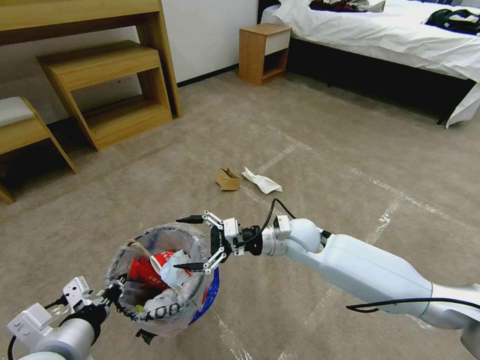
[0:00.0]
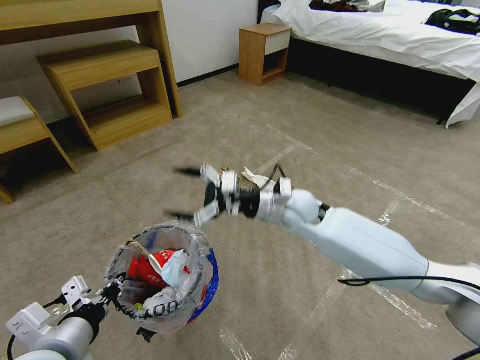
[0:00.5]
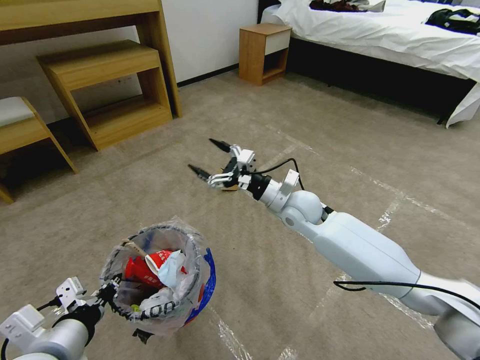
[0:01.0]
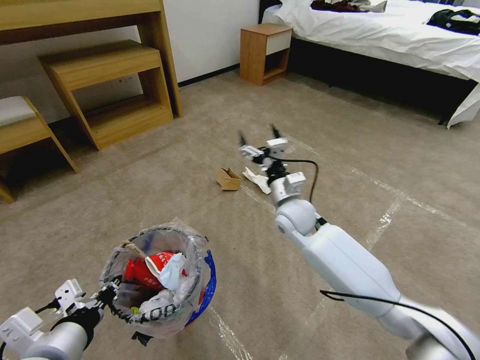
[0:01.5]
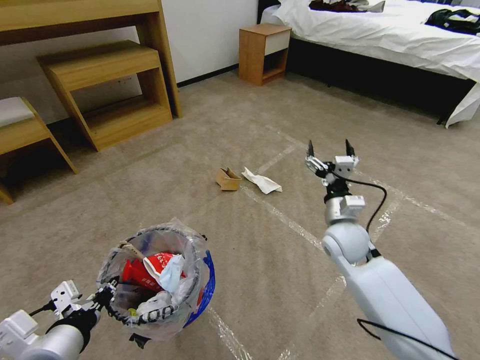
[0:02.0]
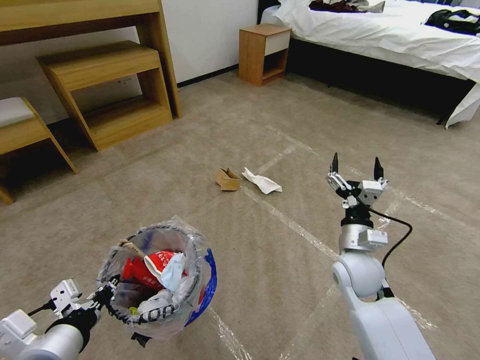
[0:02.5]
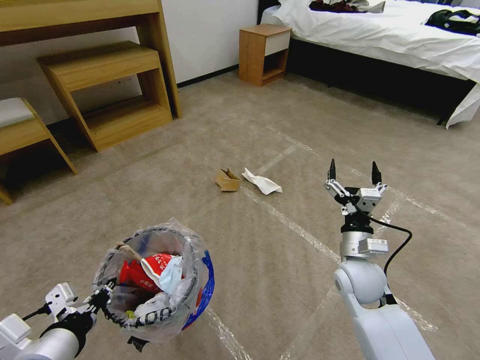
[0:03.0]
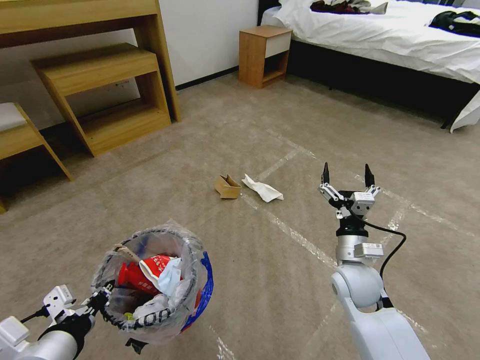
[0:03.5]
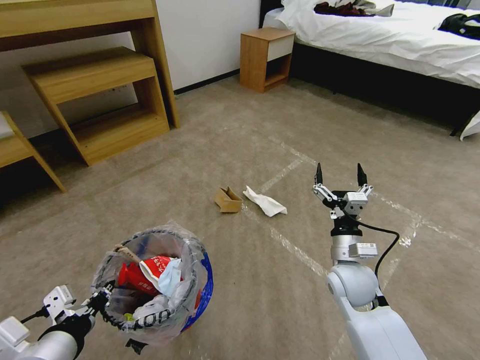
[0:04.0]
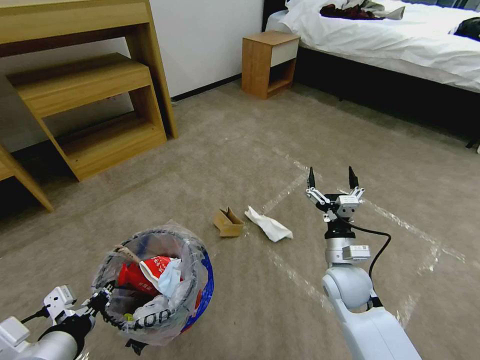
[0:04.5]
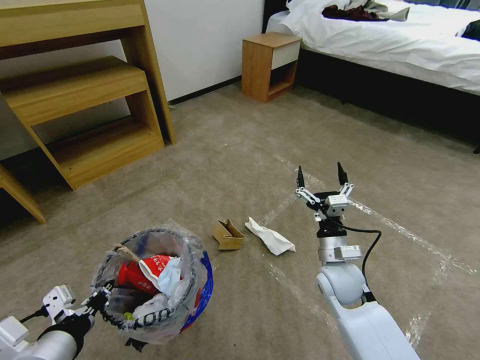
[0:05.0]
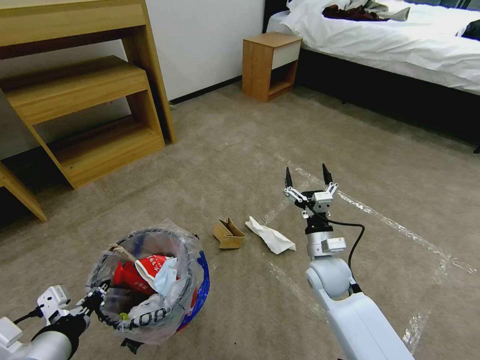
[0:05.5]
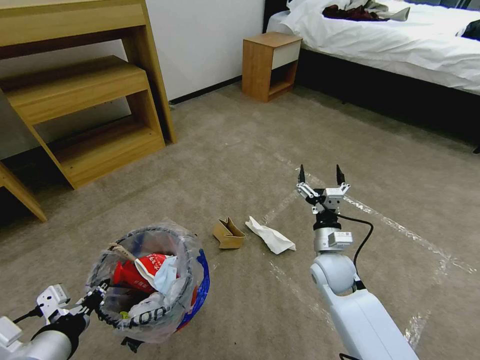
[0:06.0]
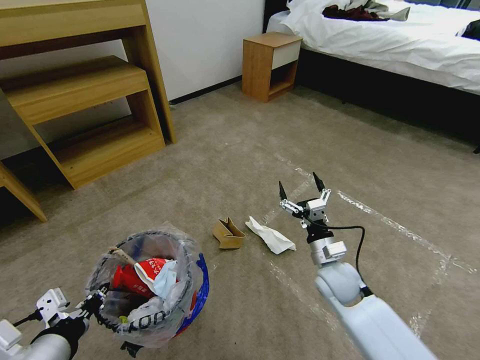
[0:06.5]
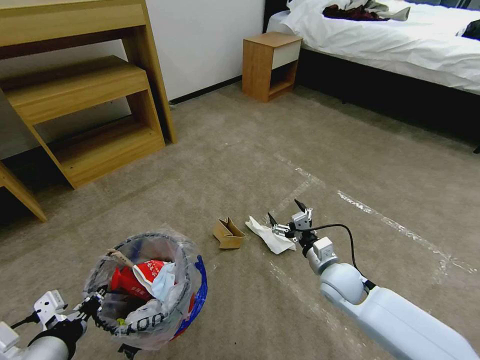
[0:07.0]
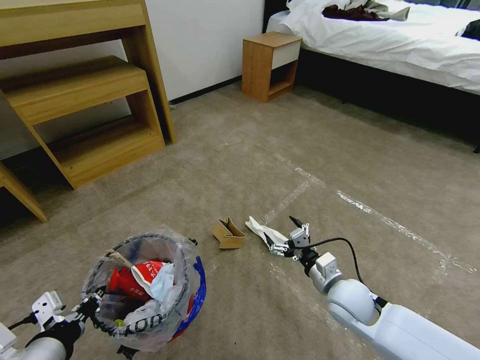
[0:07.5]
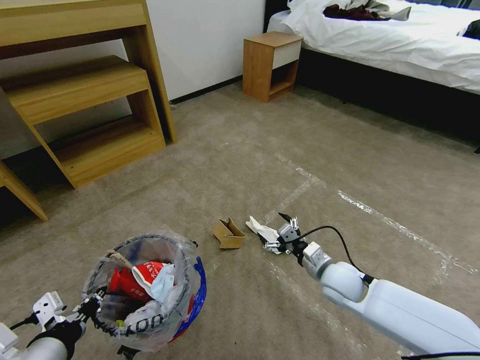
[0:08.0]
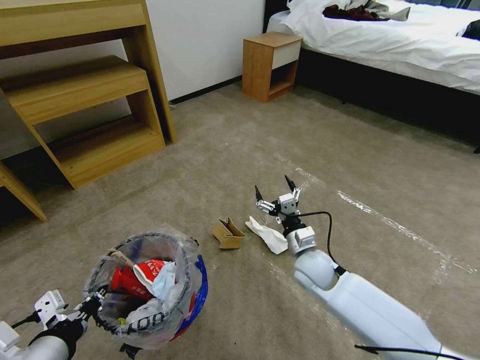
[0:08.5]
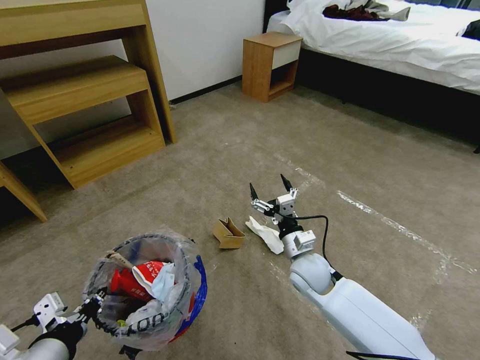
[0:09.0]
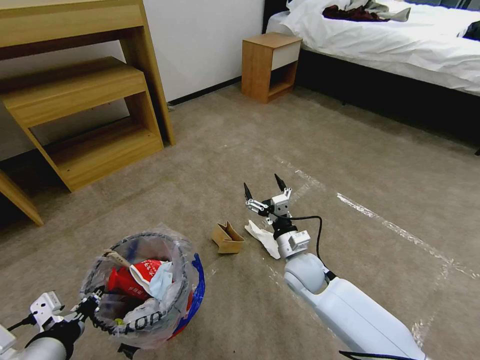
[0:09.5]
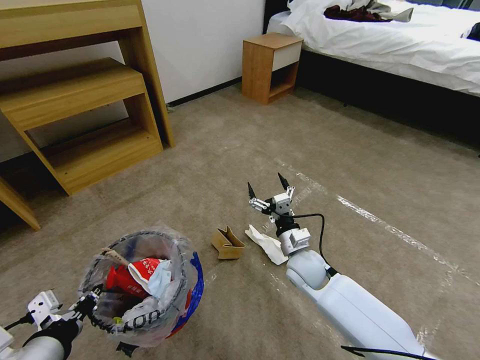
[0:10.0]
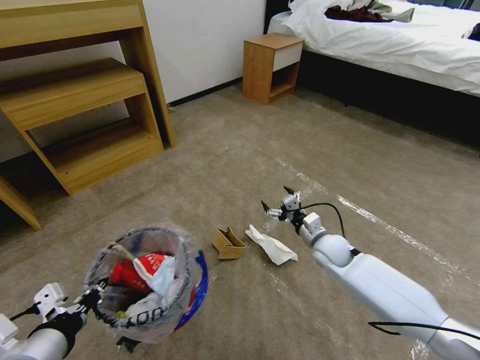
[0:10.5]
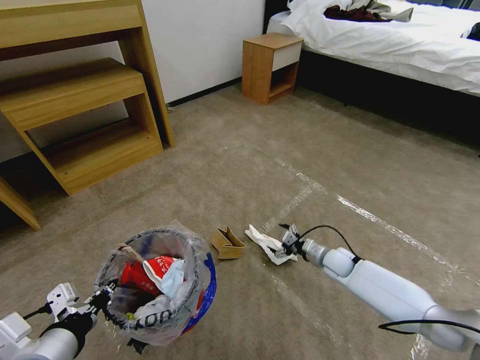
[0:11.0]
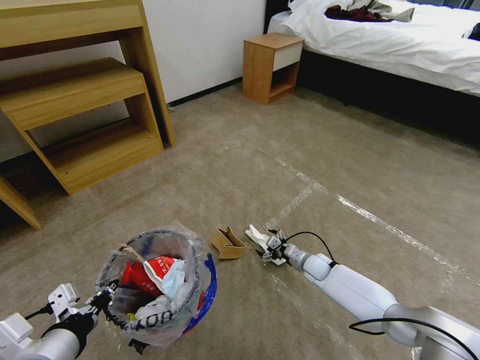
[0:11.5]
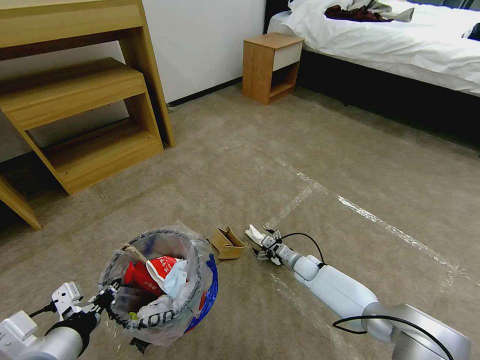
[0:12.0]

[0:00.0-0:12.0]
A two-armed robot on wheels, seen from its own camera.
Task of the whole recording: Pick up the trash bin and place the garbage on the floor into it.
0:00.0 to 0:02.0: The right gripper travels to the right by approximately 10 cm.
0:02.0 to 0:04.0: The right gripper goes about 10 cm backward.
0:08.0 to 0:10.0: The right gripper shifts some 10 cm to the left.
0:10.0 to 0:12.0: The right gripper goes some 20 cm downward, forward and to the right.

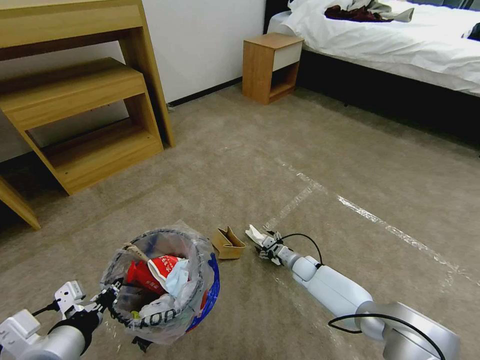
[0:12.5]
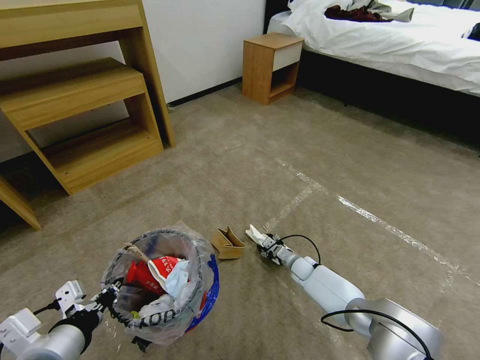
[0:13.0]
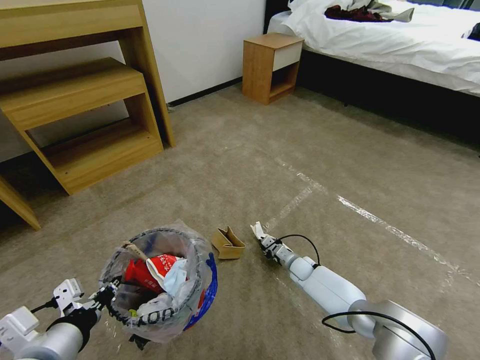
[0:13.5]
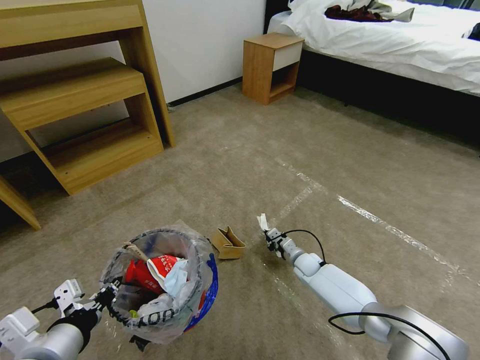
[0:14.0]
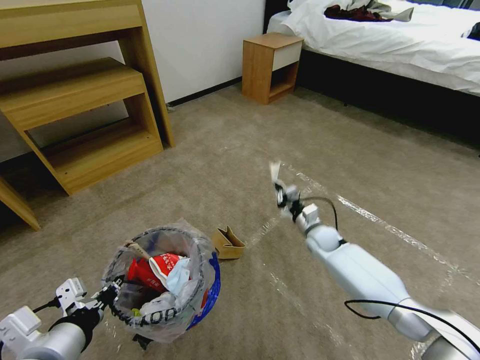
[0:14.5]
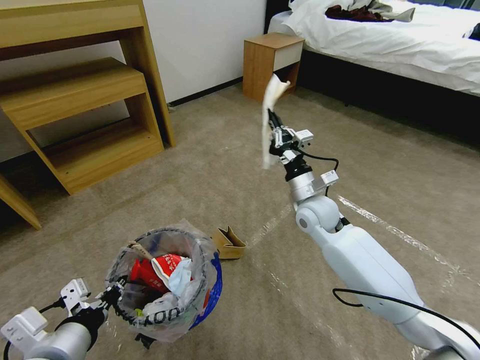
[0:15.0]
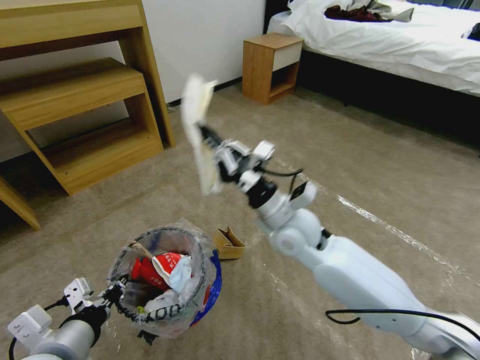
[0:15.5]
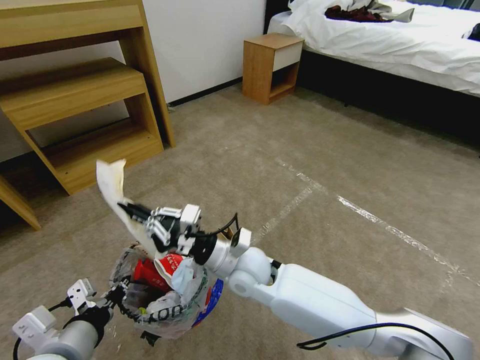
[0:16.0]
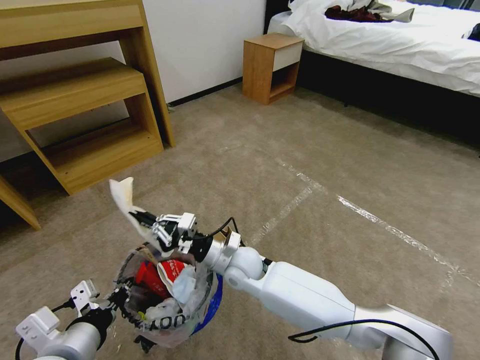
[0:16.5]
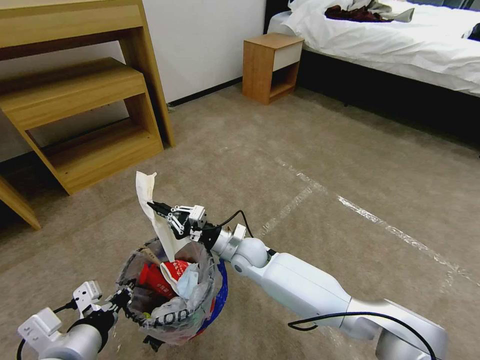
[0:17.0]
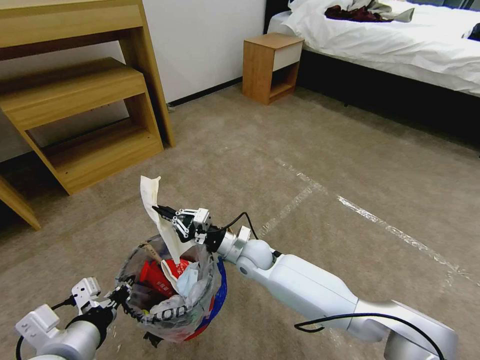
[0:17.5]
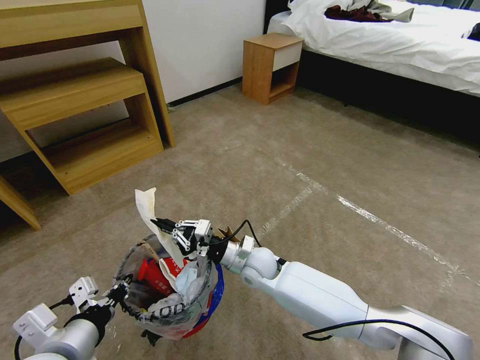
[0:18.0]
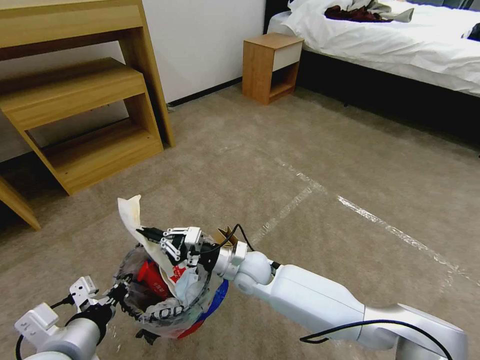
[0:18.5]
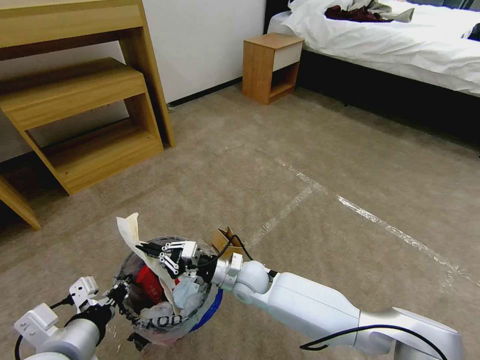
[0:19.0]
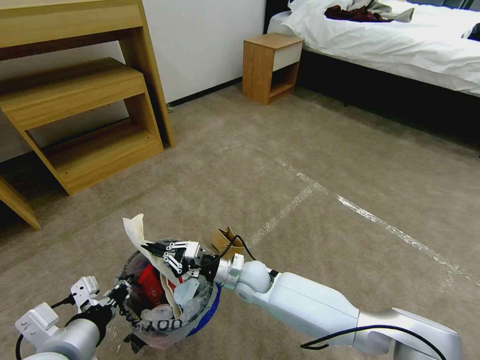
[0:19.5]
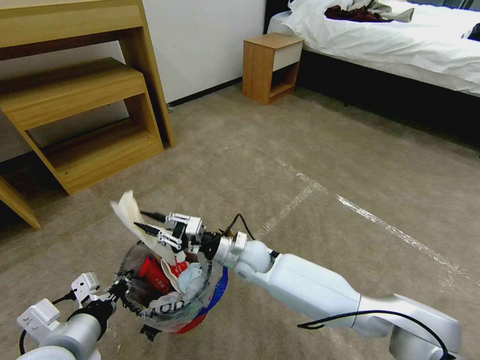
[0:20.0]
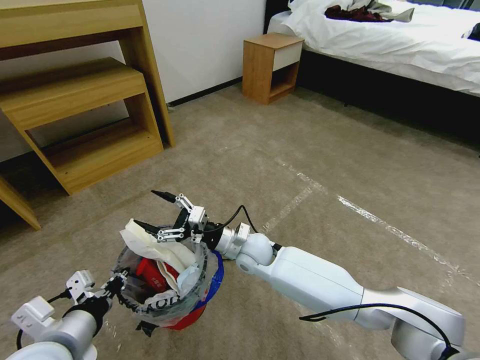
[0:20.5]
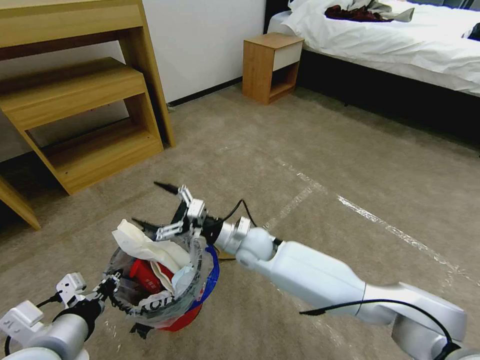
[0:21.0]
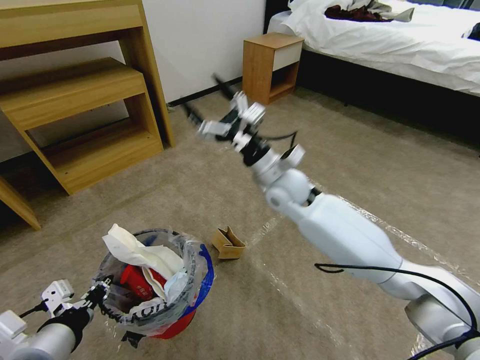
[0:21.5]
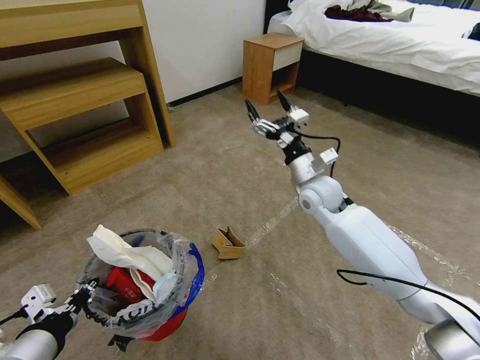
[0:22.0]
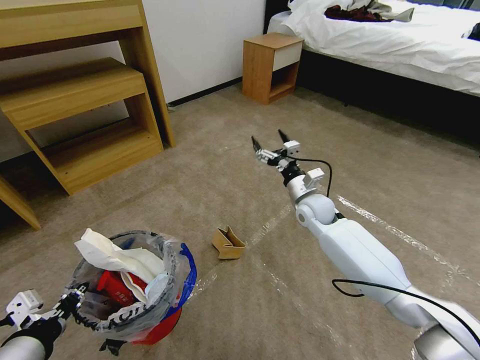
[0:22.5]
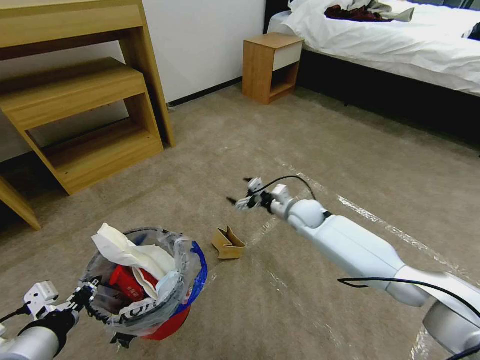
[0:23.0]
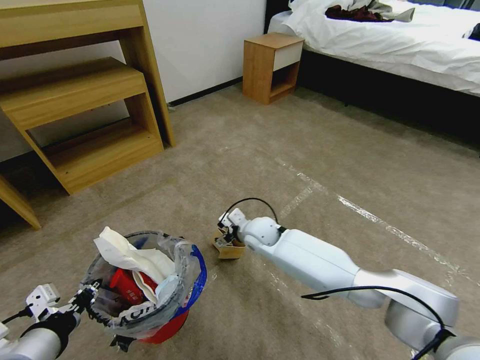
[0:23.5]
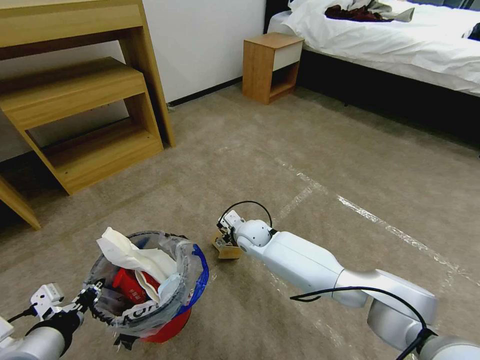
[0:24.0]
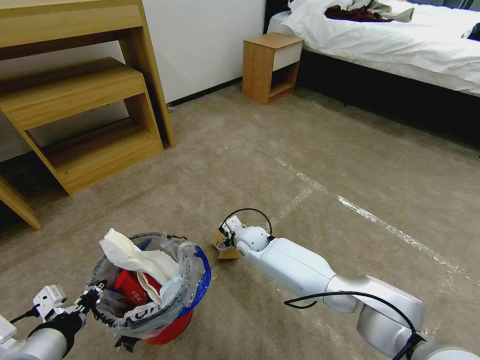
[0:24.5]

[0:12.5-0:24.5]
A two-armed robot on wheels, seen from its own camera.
Task of the whole recording: Pick up the trash bin and place the garbage on the floor into it.
0:12.5 to 0:14.5: The right gripper is displaced upward by about 10 cm, and closes its fingers.
0:14.5 to 0:16.5: The right gripper moves to the left and backward, some 25 cm.
0:16.5 to 0:18.5: The grippers stay close to where they were, moving slightly.
0:18.5 to 0:20.5: The right gripper opens its fingers.
0:20.5 to 0:22.5: The right gripper is displaced to the right and forward by about 20 cm; the left gripper moves some 5 cm.
0:22.5 to 0:24.5: The right gripper goes some 20 cm to the left and downward.

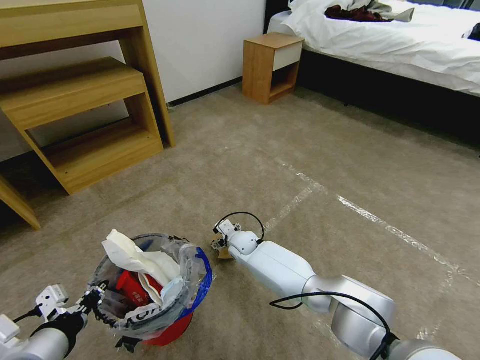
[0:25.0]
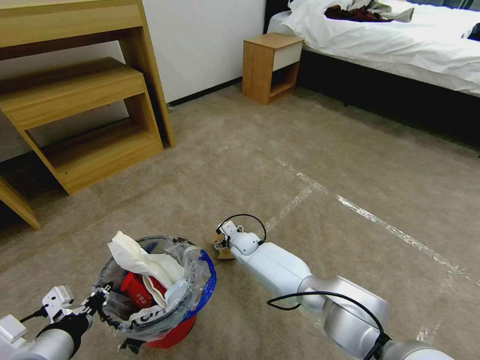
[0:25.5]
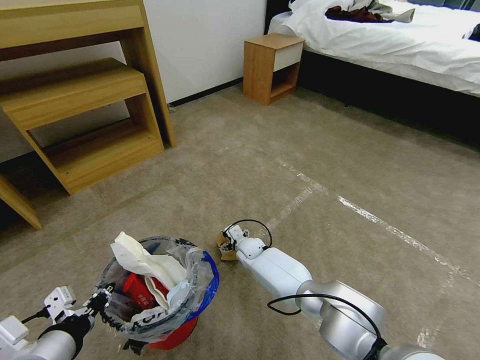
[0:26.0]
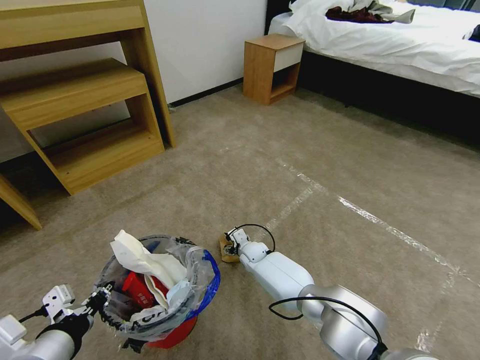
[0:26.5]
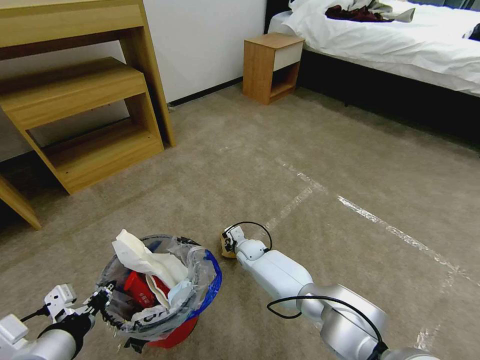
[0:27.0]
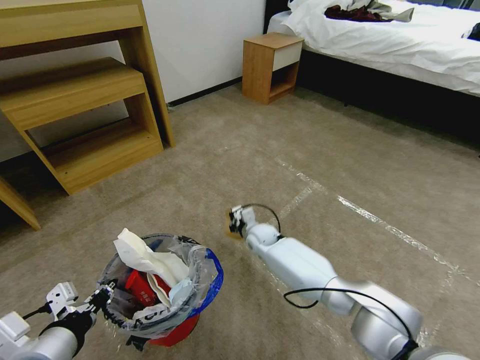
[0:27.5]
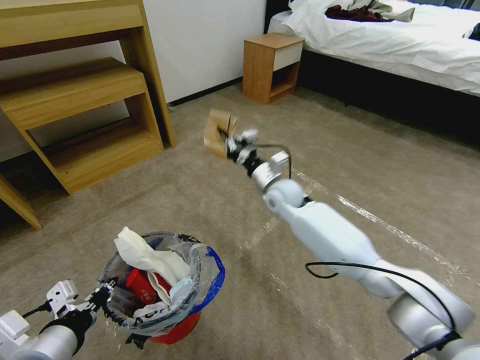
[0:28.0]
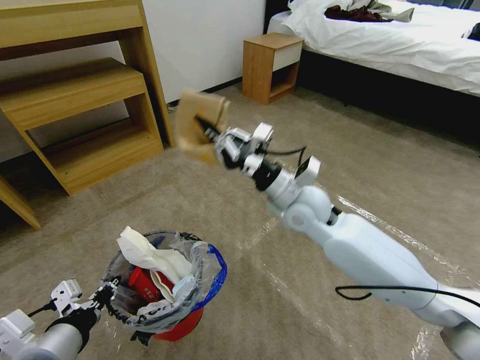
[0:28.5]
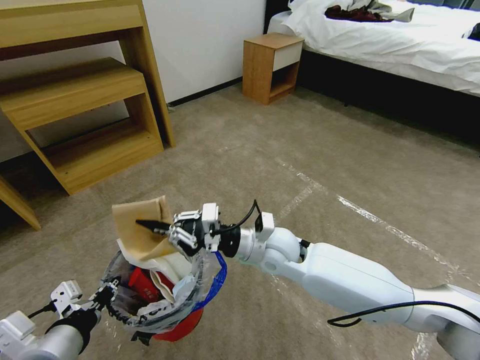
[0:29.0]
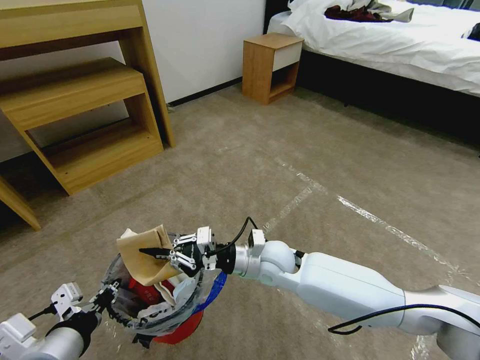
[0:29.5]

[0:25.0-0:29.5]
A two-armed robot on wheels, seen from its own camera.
Task of the whole recording: Pick up the trash bin and place the garbage on the floor into it.
0:25.0 to 0:27.0: The right gripper moves approximately 5 cm, and closes its fingers.
0:27.0 to 0:29.5: The right gripper goes about 20 cm upward and backward.
